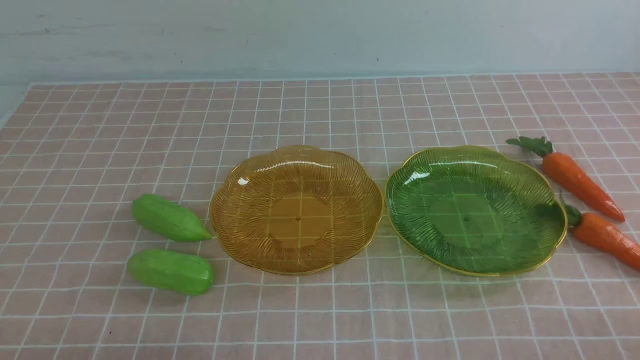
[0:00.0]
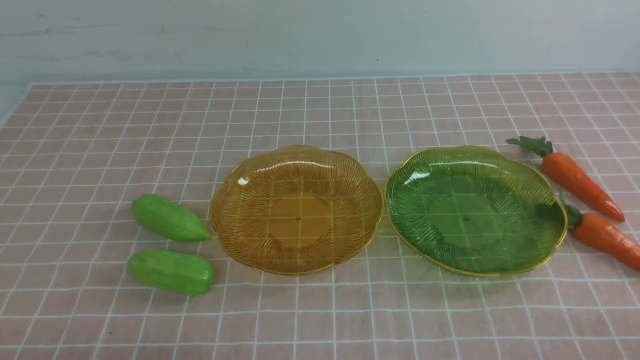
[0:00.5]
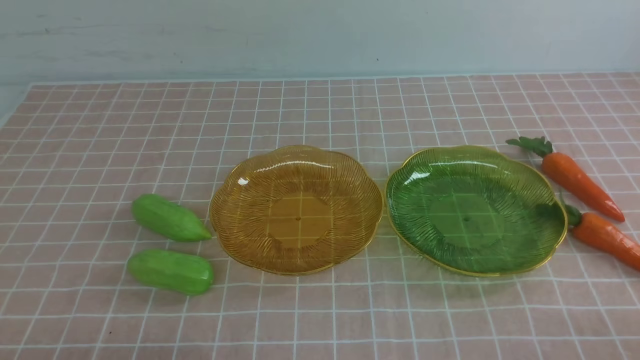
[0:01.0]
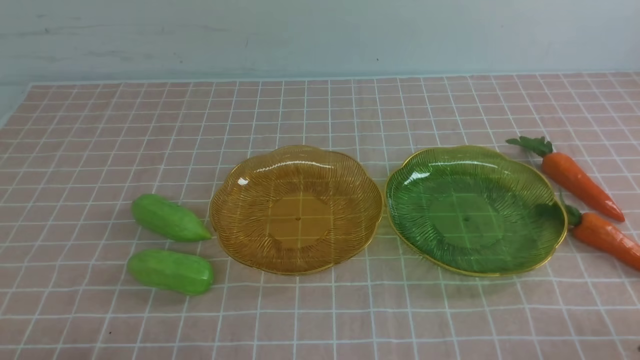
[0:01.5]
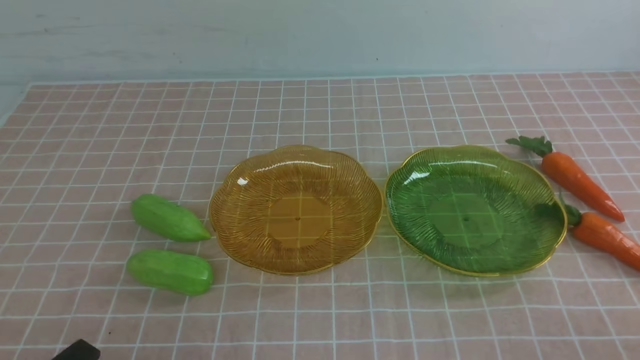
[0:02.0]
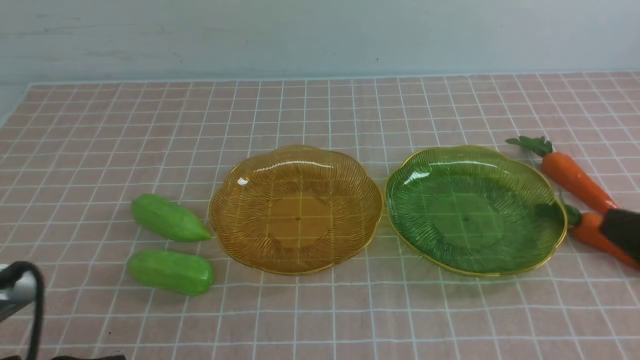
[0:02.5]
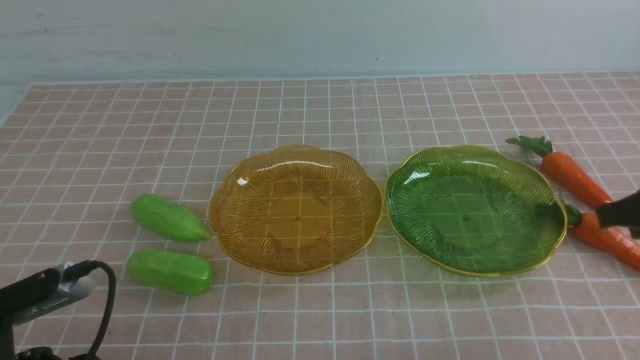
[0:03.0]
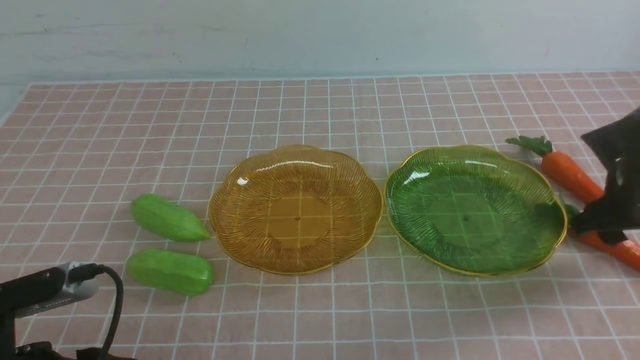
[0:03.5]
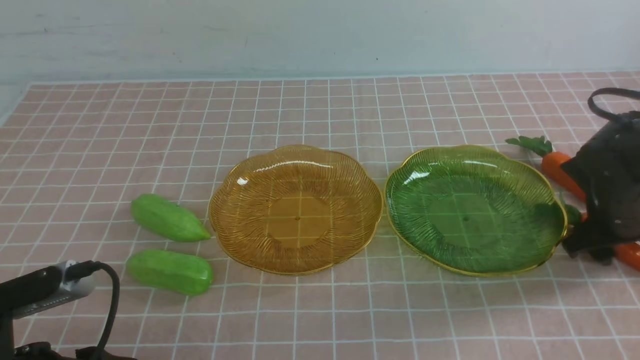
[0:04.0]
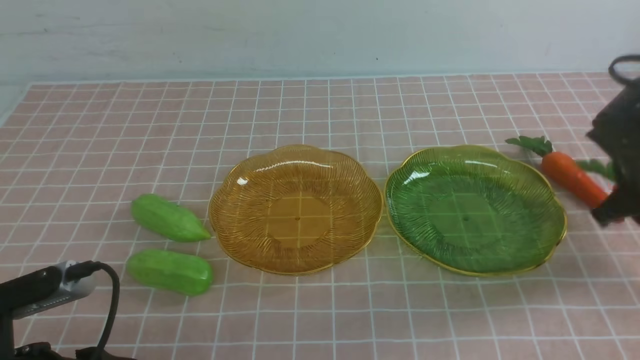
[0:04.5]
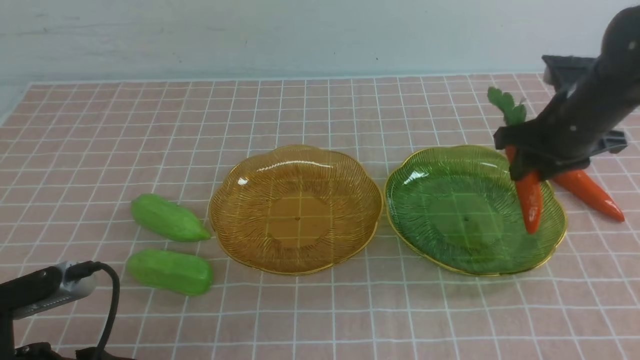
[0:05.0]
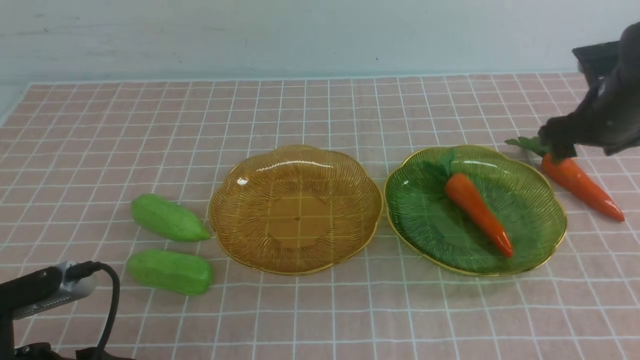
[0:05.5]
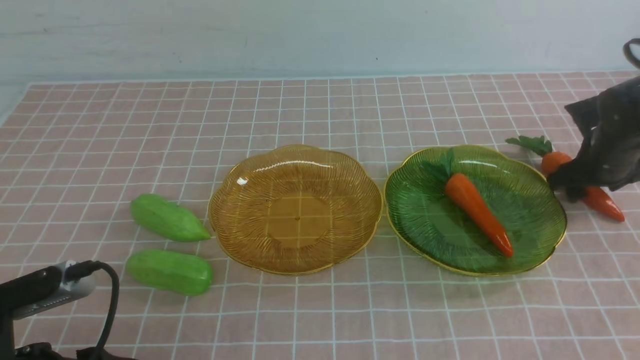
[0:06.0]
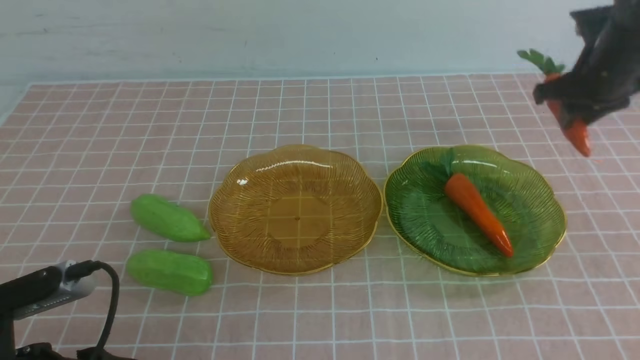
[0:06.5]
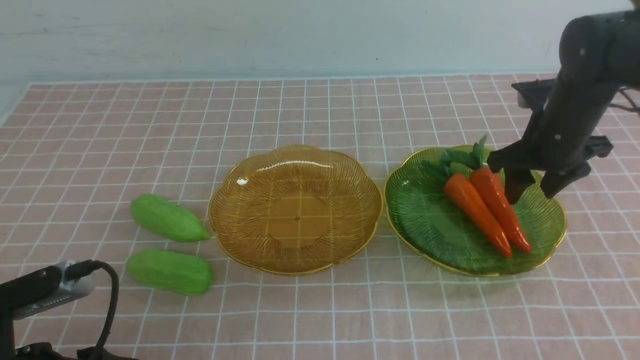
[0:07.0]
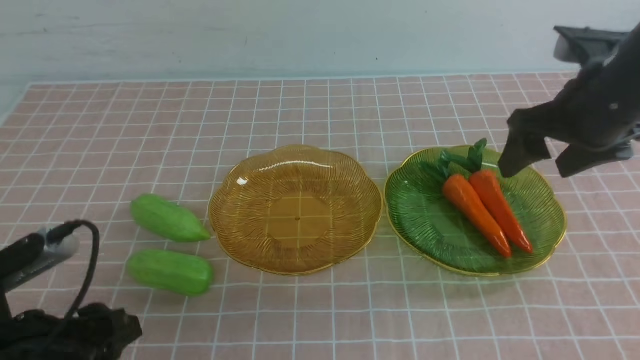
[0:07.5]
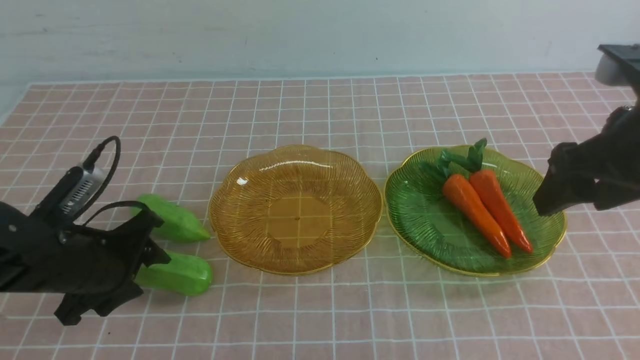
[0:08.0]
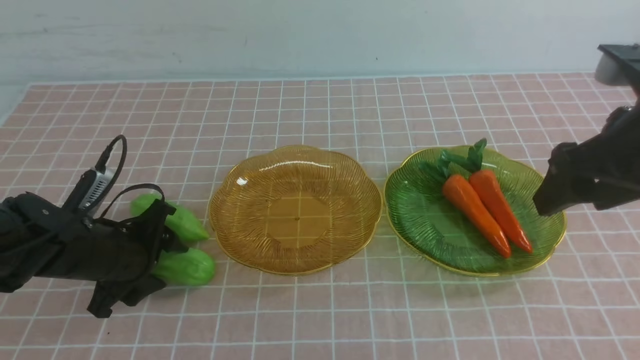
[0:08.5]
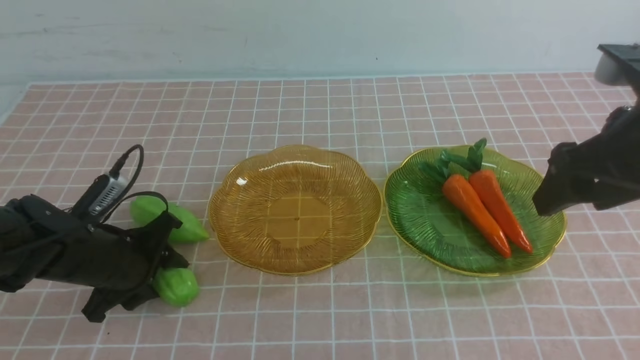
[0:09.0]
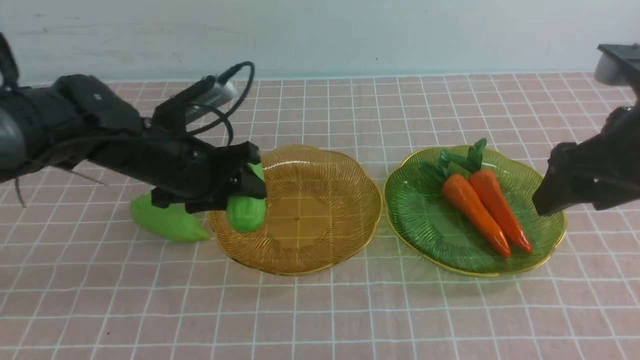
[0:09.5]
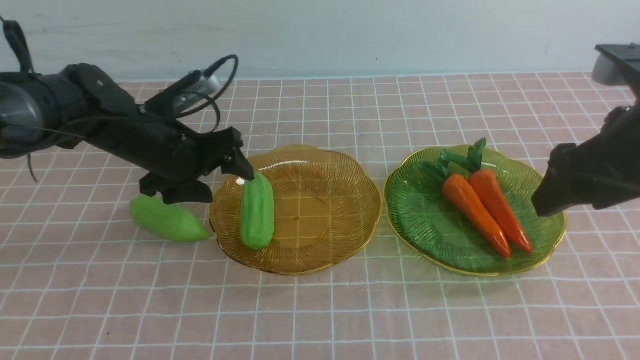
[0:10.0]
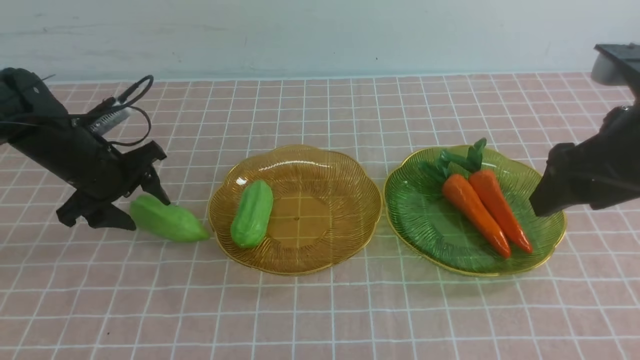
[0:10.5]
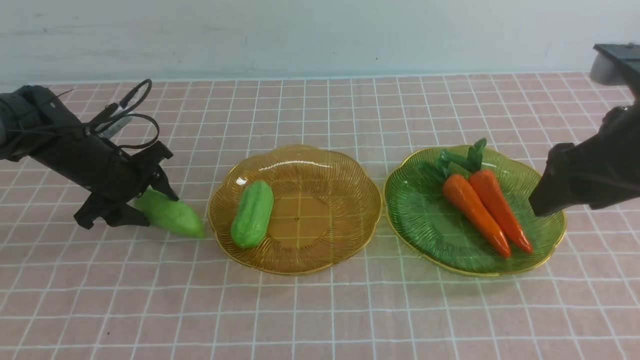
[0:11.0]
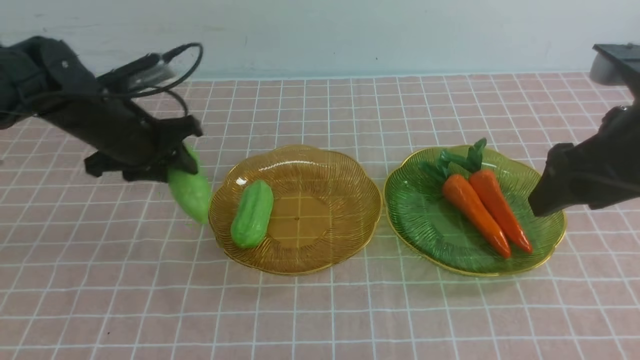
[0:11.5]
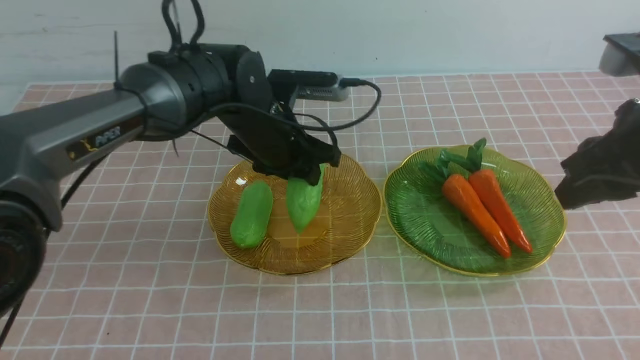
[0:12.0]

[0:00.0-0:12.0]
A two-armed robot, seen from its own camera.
Step, 0:00.0 to 0:05.0: use the right arm to grab a carrot and put it into the right plate.
Step, 0:05.5 to 0:07.0: use the right arm to grab a carrot and put it into the right plate.
0:02.0 to 0:04.0: The right gripper travels forward by about 30 cm, and opens. Meanwhile the left gripper heads forward, covering roughly 5 cm, and opens.
0:04.0 to 0:06.0: The right gripper is displaced forward by about 10 cm.
0:06.0 to 0:08.0: The right gripper moves backward, upward and to the left, about 25 cm. Meanwhile the left gripper moves forward, roughly 15 cm.
0:08.0 to 0:10.0: The left gripper shifts approximately 15 cm forward.
0:10.0 to 0:12.0: The right gripper closes, while the left gripper travels to the right by some 15 cm, and closes.

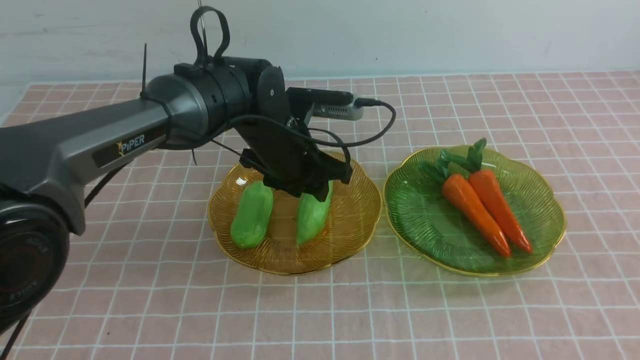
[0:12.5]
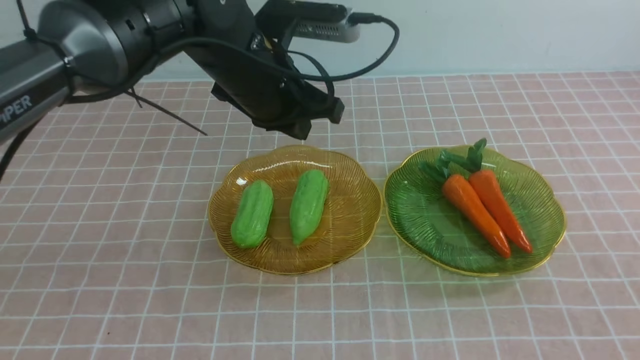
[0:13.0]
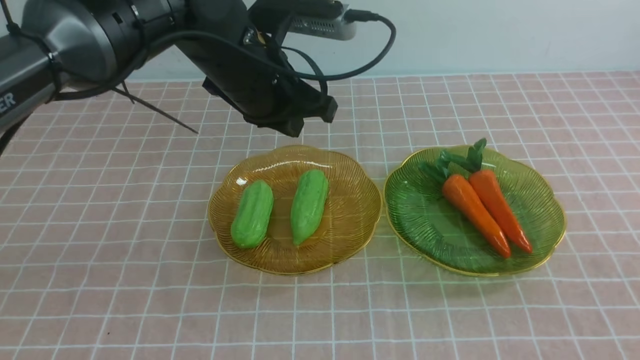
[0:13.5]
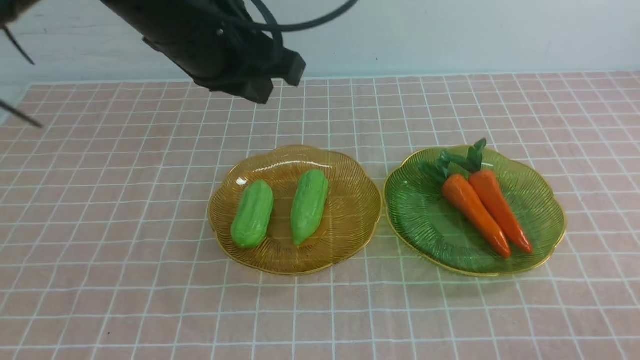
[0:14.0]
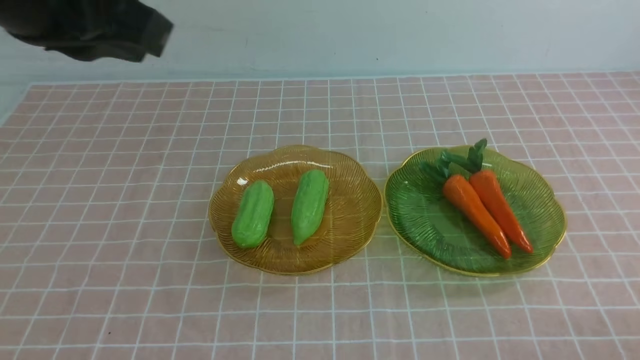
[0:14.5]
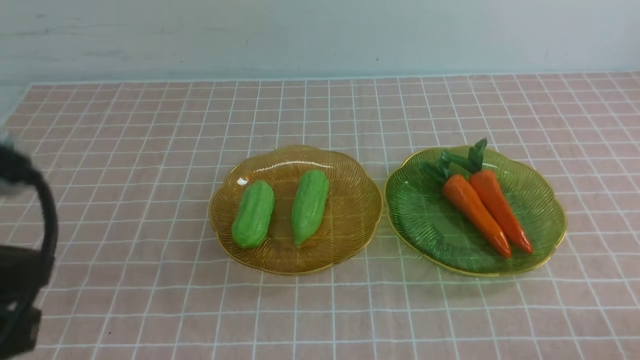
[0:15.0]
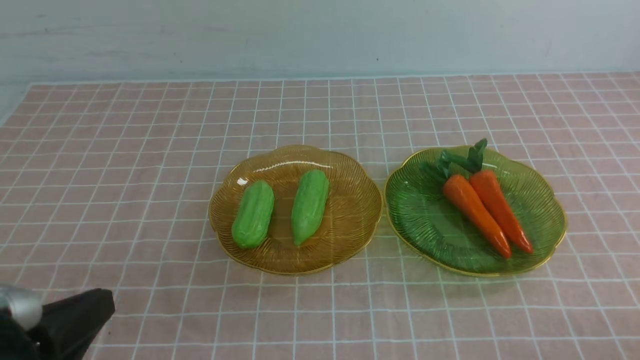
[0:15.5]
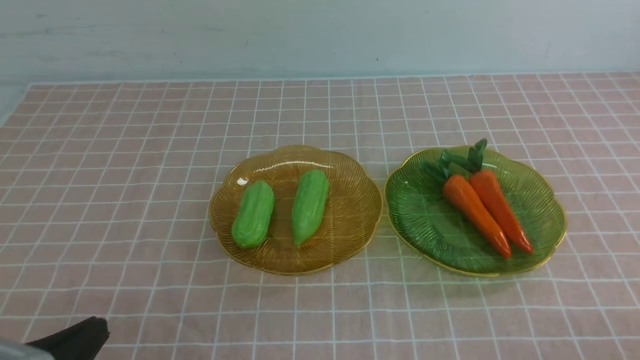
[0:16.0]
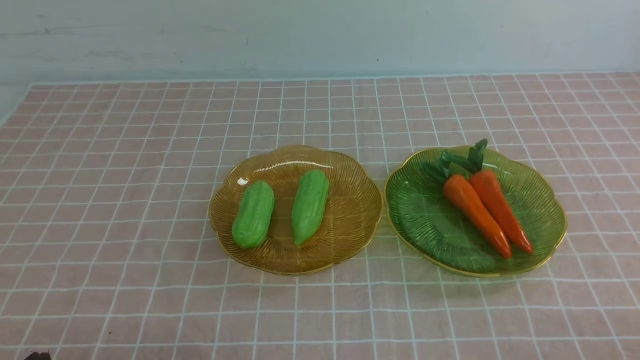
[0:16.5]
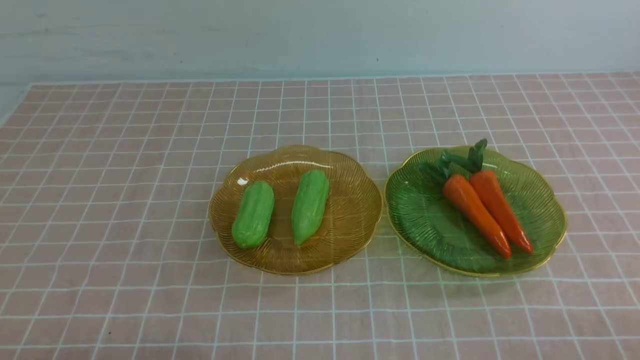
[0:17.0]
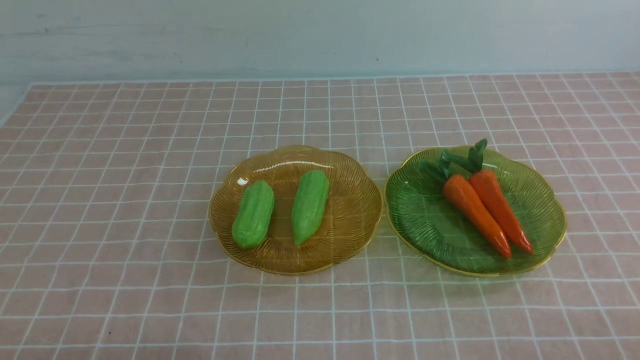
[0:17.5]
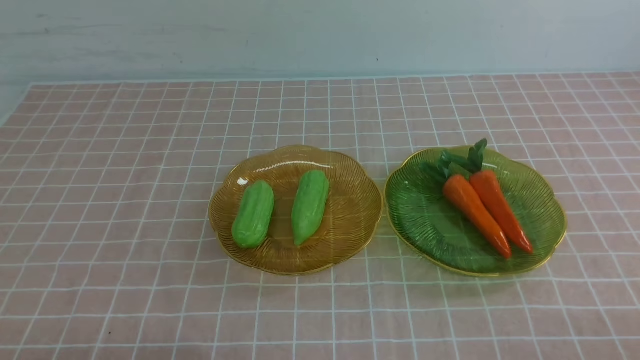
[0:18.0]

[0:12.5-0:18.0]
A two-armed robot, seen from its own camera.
0:12.5 to 0:14.5: The right gripper goes roughly 20 cm downward. Meanwhile the left gripper moves upward, backward and to the left, about 35 cm, and closes its fingers.
0:14.5 to 0:16.0: The left gripper heads downward and backward, covering about 30 cm.
0:16.0 to 0:18.0: The left gripper moves downward, roughly 5 cm.

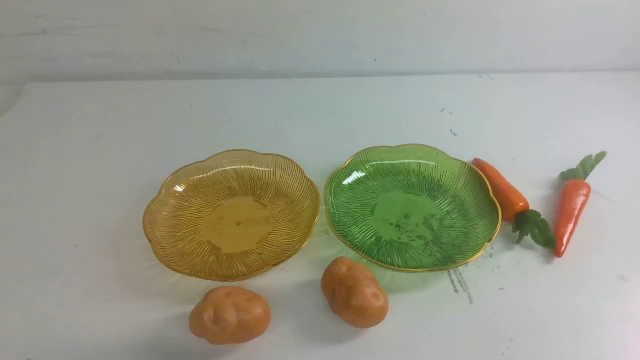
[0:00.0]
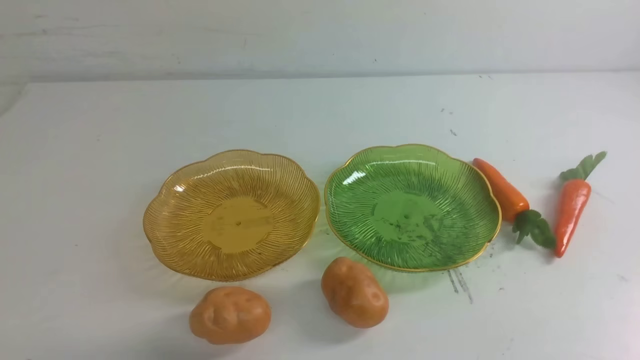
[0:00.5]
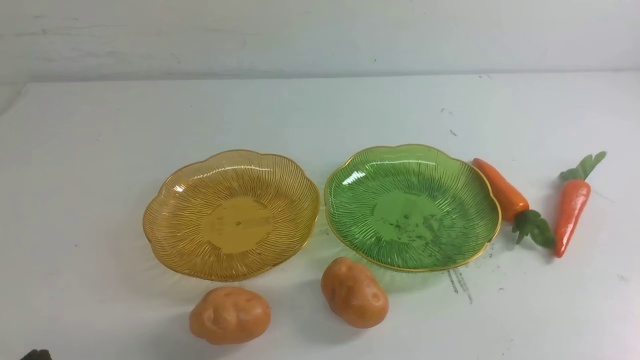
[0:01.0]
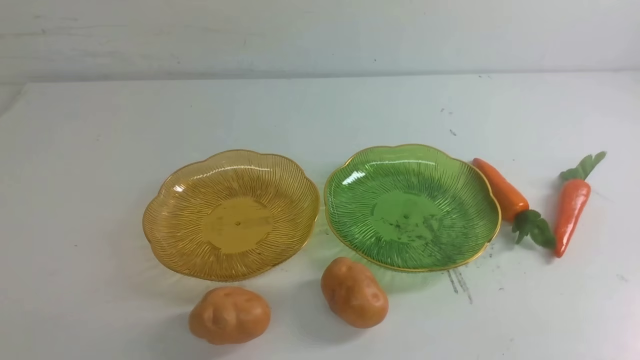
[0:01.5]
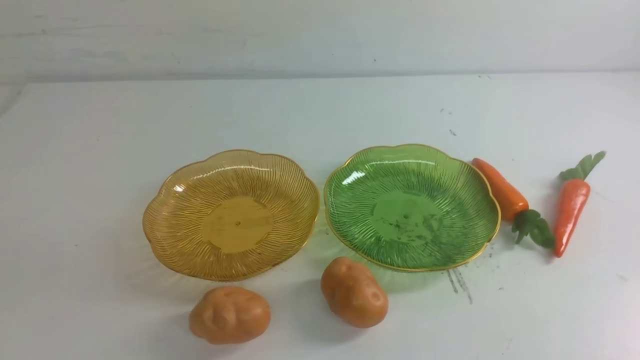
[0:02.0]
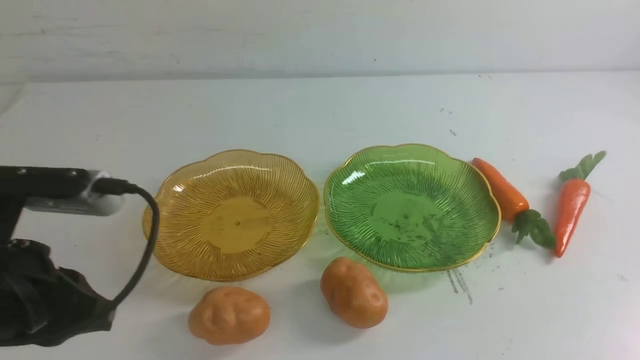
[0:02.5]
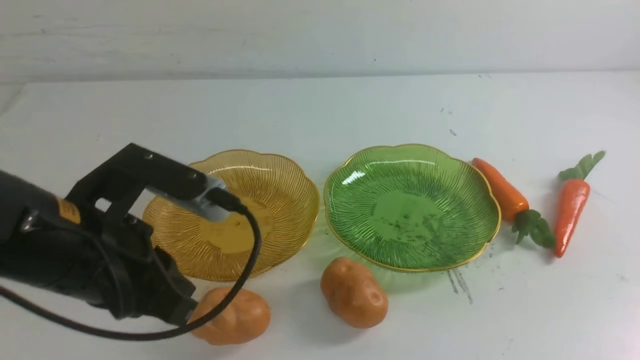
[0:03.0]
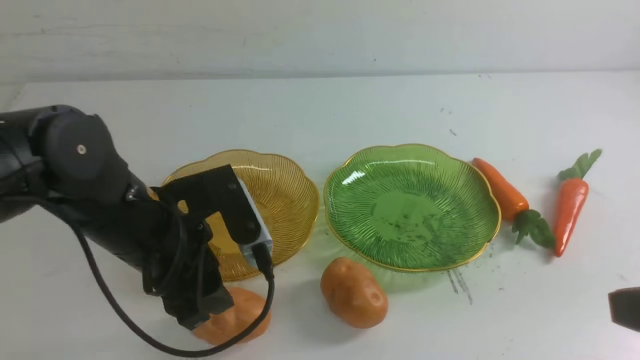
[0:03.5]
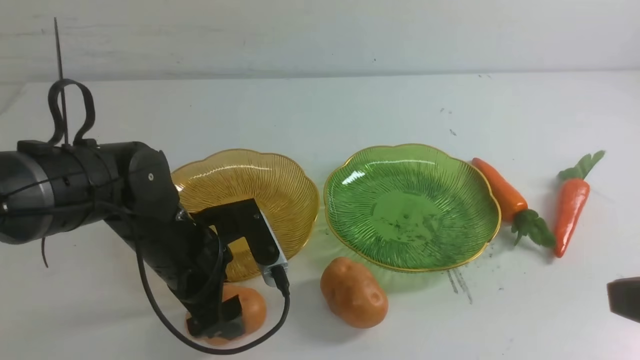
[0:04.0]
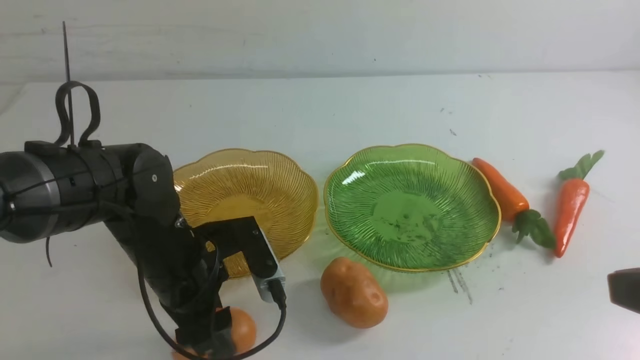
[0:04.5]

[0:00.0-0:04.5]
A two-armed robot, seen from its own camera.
0:02.0 to 0:04.5: The left gripper shifts some 25 cm forward, downward and to the right, and opens. Meanwhile the right gripper is displaced upward by about 15 cm.
